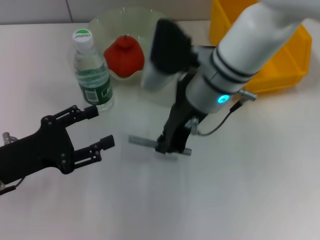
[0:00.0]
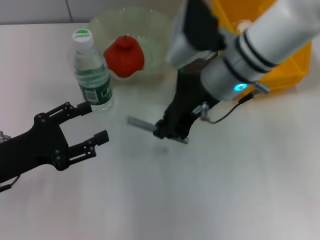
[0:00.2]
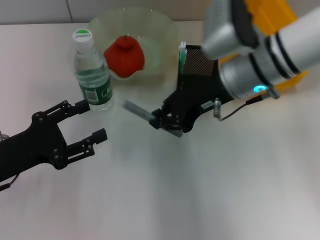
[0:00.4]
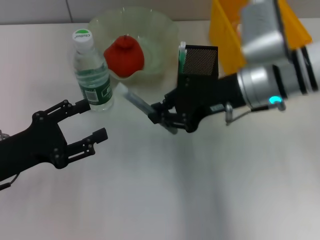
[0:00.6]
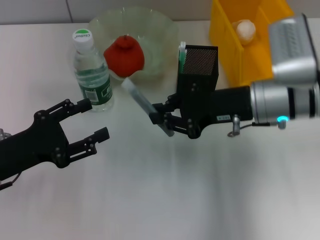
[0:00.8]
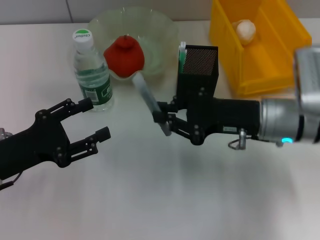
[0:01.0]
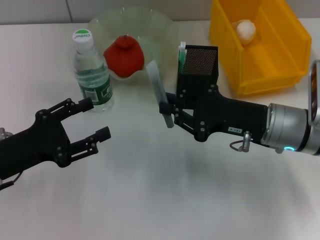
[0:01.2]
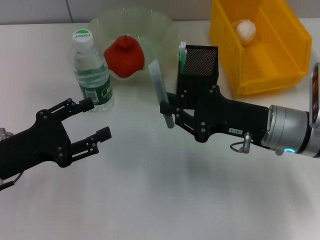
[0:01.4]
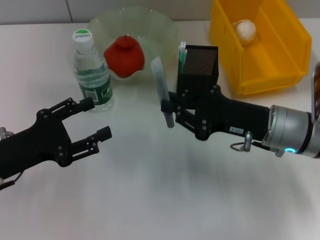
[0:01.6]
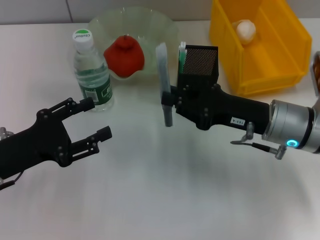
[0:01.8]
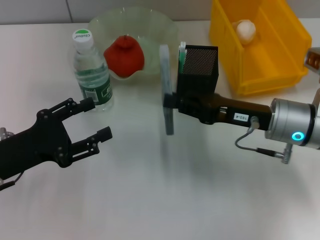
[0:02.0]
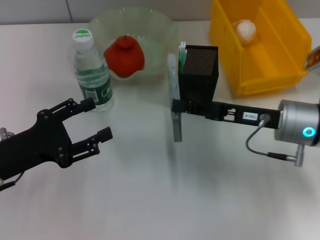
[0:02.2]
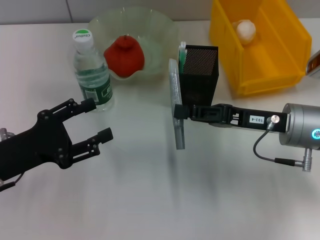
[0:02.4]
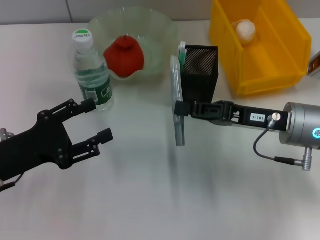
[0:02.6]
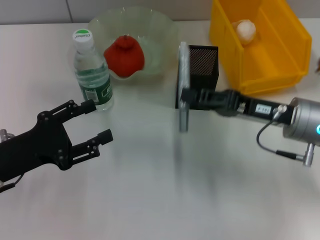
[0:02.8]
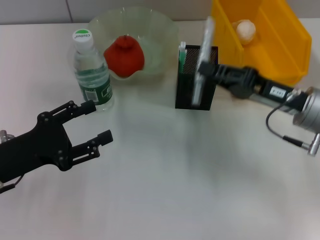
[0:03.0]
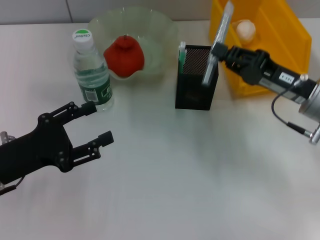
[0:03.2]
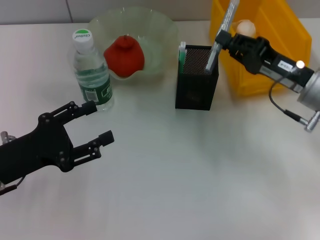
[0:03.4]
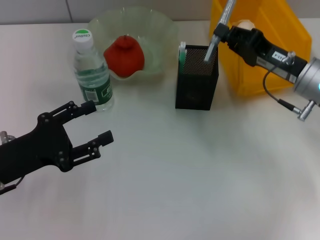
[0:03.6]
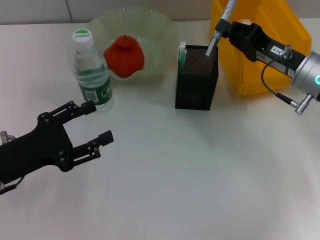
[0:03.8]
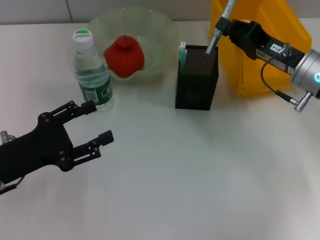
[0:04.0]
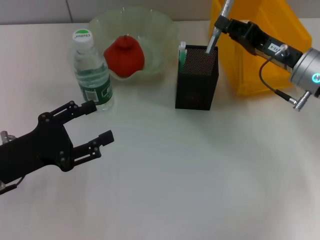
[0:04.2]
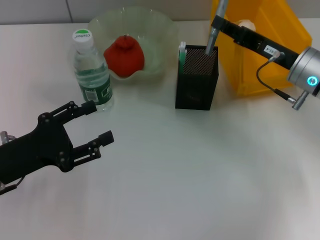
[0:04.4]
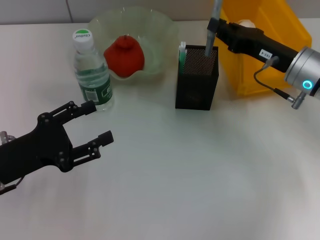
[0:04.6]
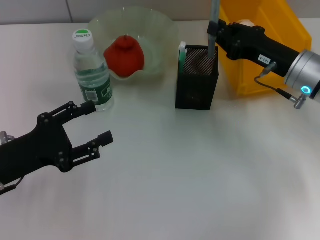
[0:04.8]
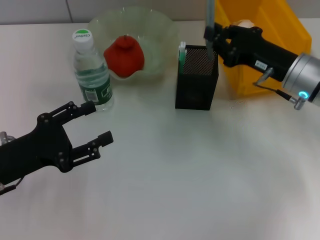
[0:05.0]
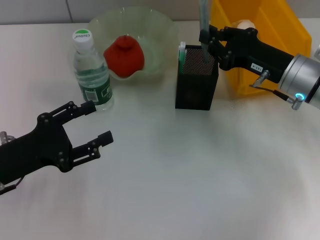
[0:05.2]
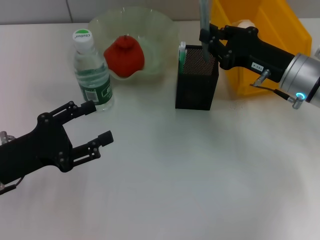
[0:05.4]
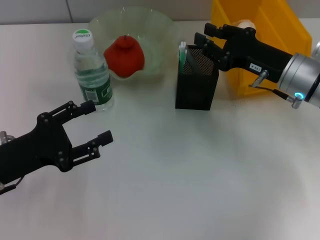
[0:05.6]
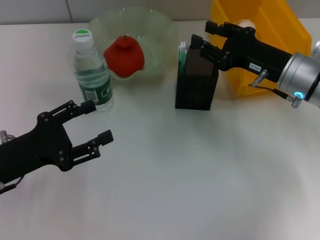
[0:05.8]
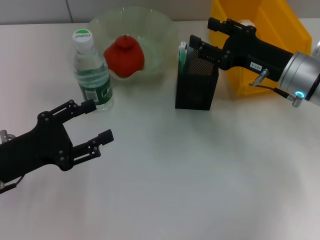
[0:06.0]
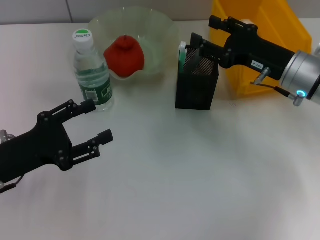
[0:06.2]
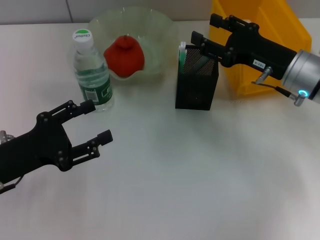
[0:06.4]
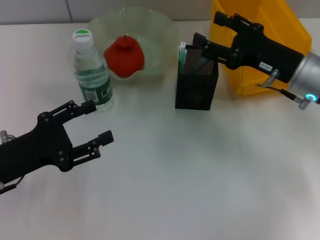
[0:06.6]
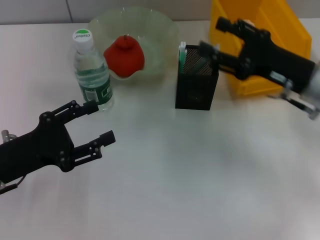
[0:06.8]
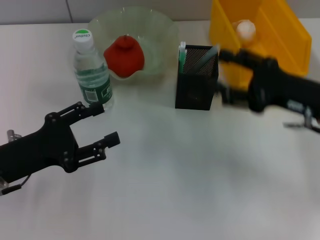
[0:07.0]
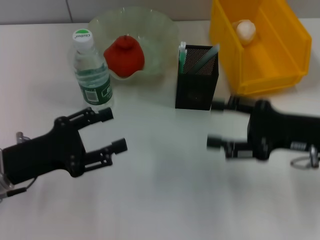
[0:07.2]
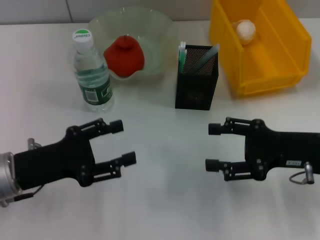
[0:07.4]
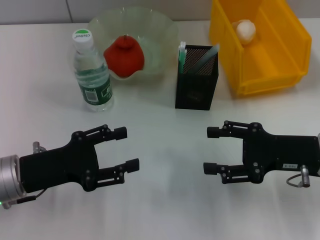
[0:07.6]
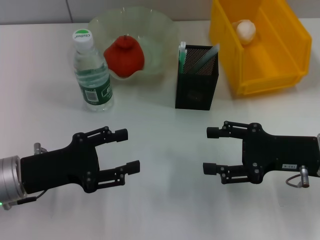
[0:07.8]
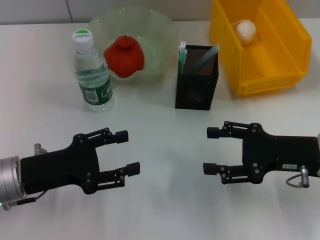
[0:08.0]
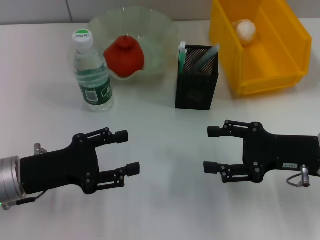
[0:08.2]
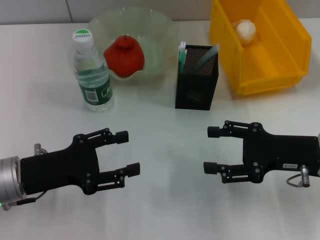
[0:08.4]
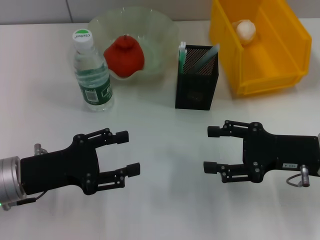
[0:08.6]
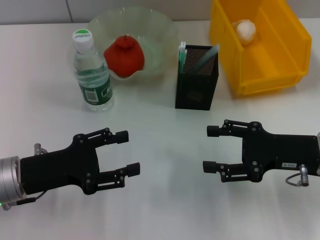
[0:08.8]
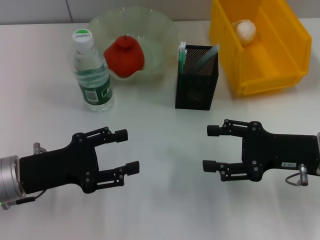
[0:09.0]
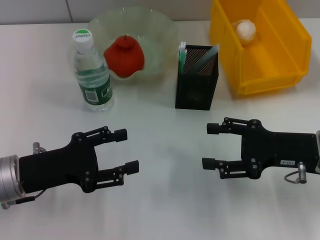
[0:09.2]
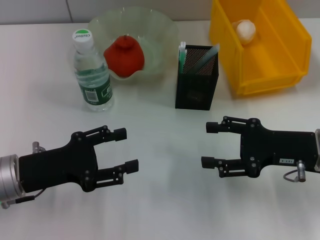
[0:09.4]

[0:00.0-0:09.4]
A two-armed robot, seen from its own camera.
Step, 0:00.0 to 0:05.6: Place the gray glue into the pen holder with the right hand.
0:00.0 to 0:01.6: The right gripper shifts roughly 15 cm to the right, downward and backward.
0:01.6 to 0:03.2: The right gripper travels to the right by approximately 5 cm.
0:04.8 to 0:06.2: The right gripper opens its fingers.
0:06.2 to 0:07.8: The right gripper moves backward, approximately 10 cm.
0:07.8 to 0:09.4: Both grippers stay put.
